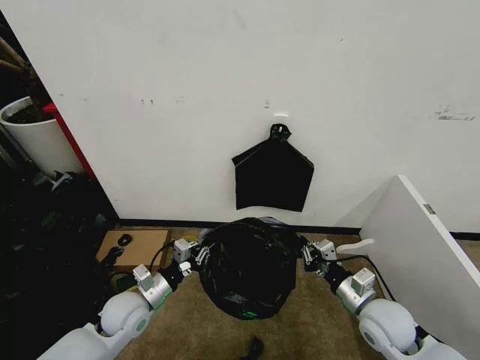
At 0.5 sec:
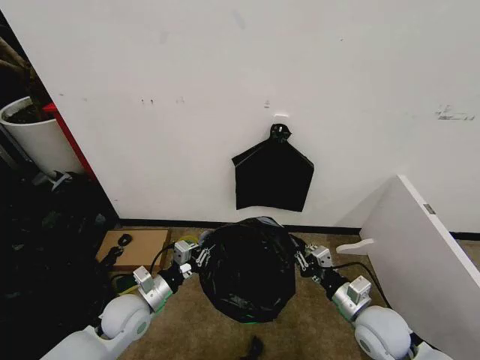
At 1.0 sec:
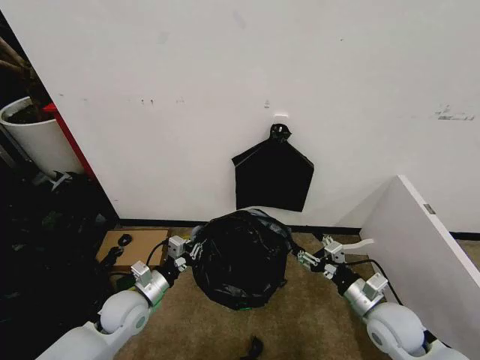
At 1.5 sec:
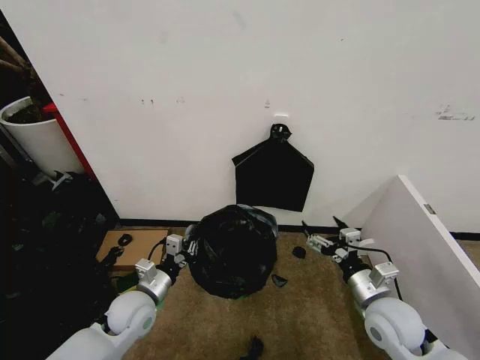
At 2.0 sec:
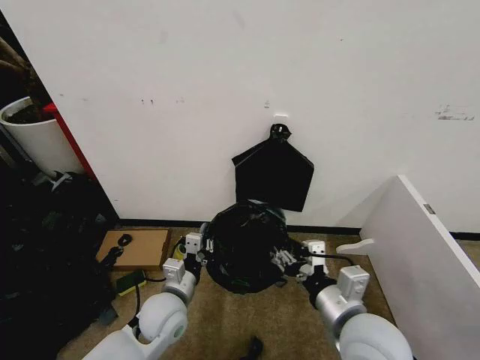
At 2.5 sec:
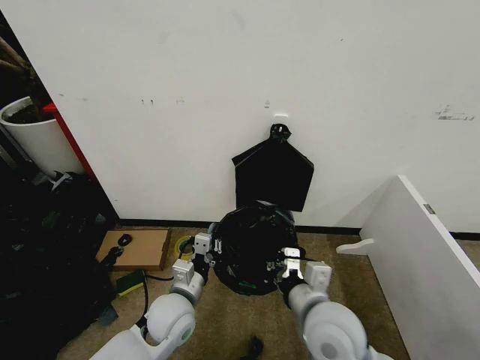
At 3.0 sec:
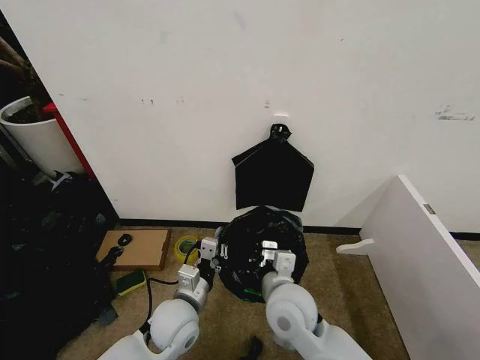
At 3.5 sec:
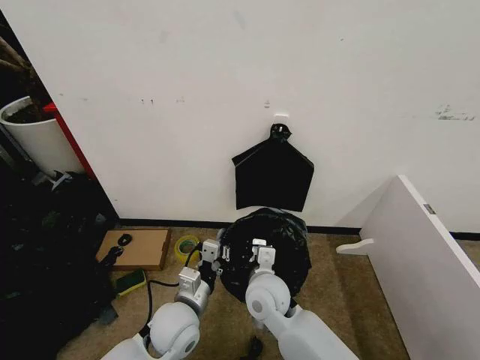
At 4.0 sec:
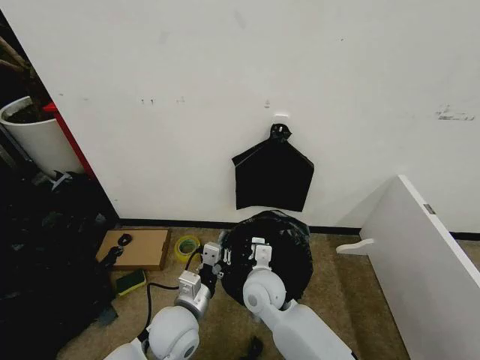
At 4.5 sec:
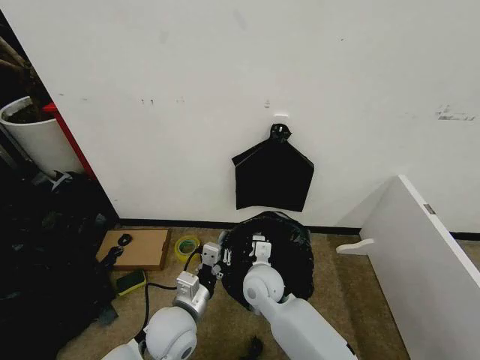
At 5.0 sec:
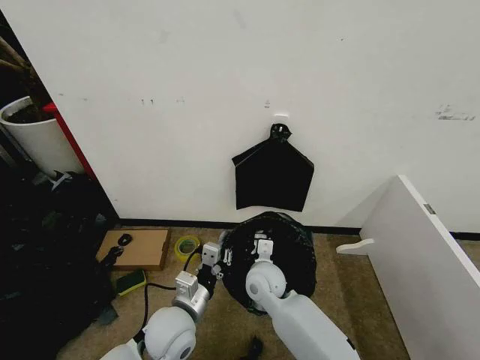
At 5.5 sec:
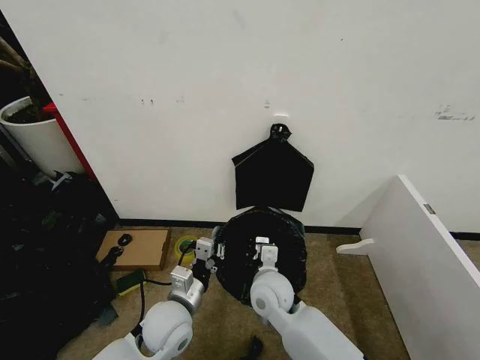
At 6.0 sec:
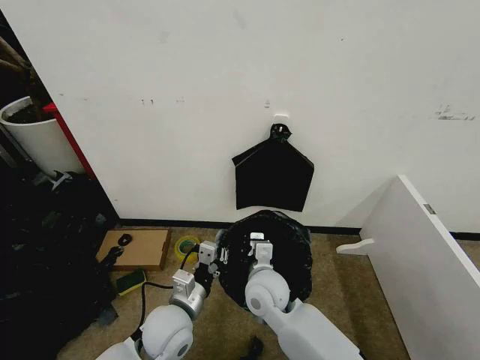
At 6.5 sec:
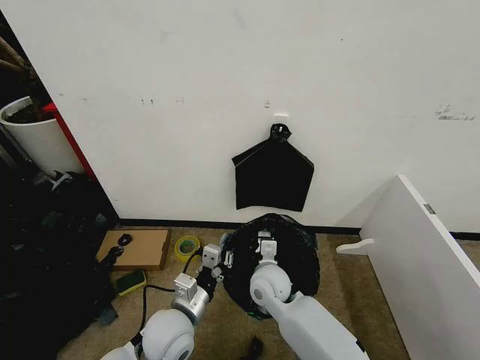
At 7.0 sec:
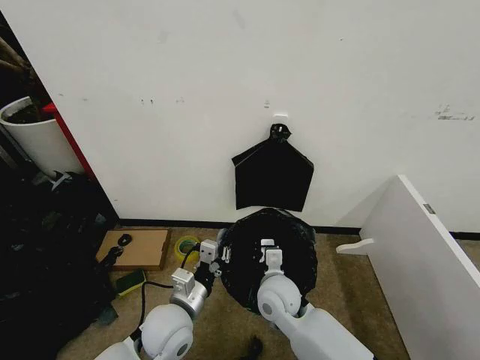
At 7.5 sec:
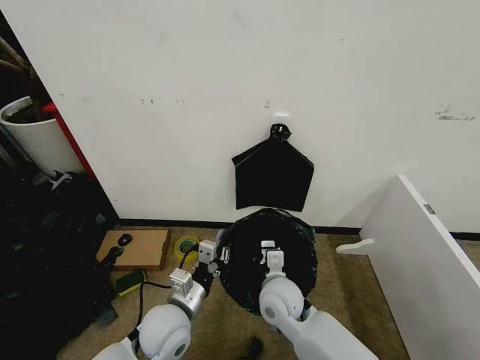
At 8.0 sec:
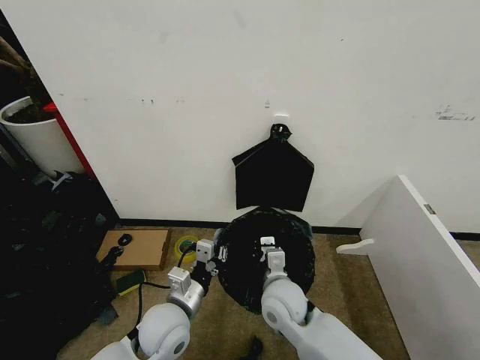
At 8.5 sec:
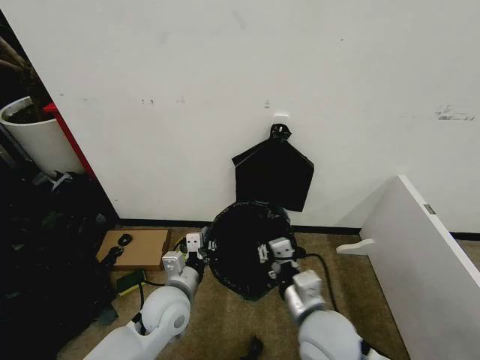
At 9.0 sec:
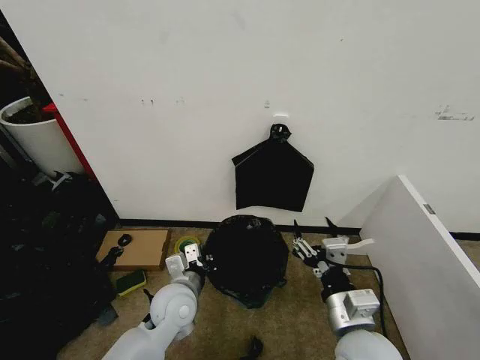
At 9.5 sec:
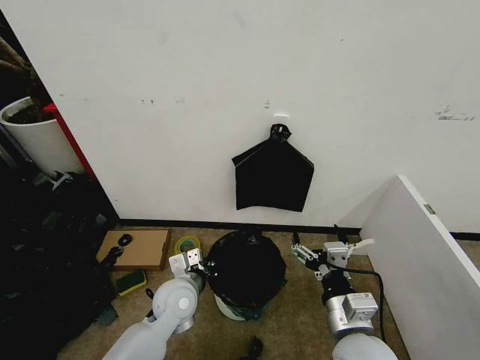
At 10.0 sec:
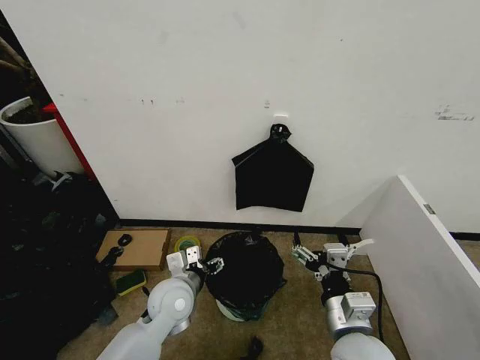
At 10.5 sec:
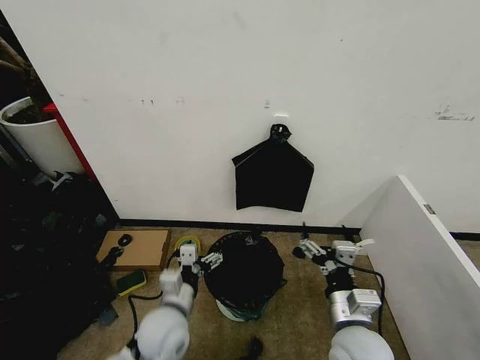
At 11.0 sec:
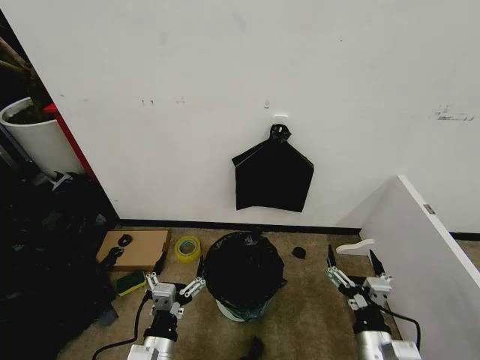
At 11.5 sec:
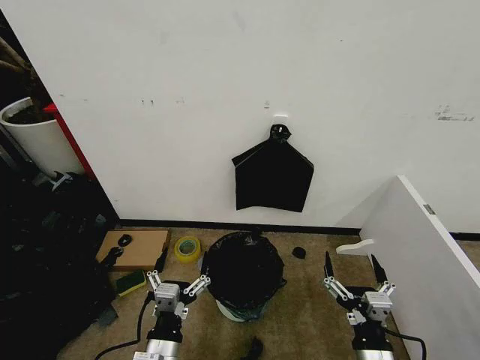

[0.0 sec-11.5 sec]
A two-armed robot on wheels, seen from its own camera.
Task of the whole recording: Place the garbage bag over the trash bin.
0.0 sec to 2.0 sec: The left gripper is displaced to the right by about 10 cm. Meanwhile the right gripper heads upward, to the left and backward, covering roughly 15 cm, and opens.
2.0 sec to 4.0 sec: The right gripper travels to the left, forward and downward by some 25 cm, and closes.
4.0 sec to 7.5 sec: The grippers make only small movements.
7.5 sec to 9.5 sec: The right gripper travels backward, to the right and upward by some 20 cm, and opens up. Meanwhile the left gripper travels forward by approximately 5 cm.
9.5 sec to 11.5 sec: The right gripper is displaced downward and backward by approximately 10 cm; the left gripper heads backward, covering some 20 cm, and opens up.

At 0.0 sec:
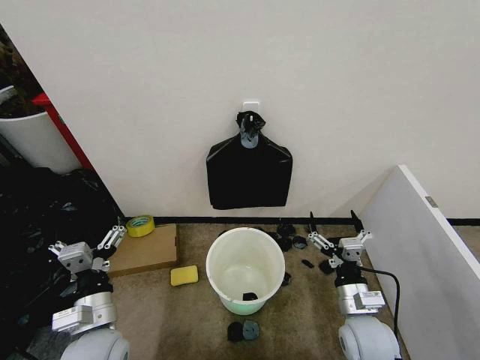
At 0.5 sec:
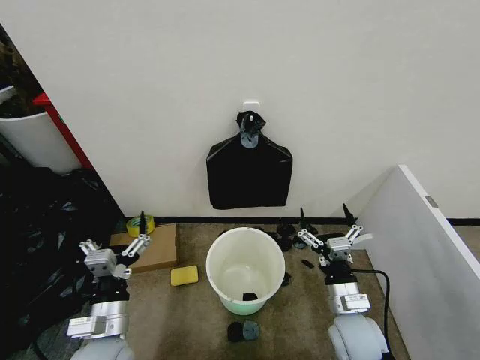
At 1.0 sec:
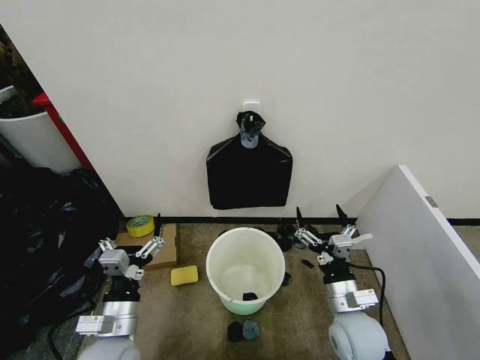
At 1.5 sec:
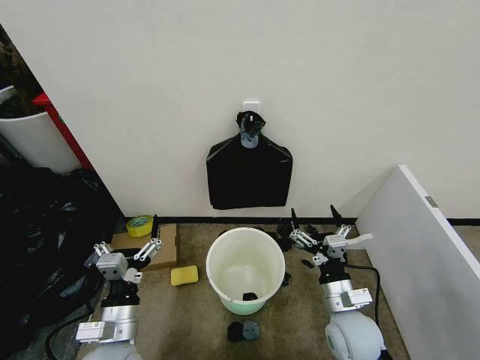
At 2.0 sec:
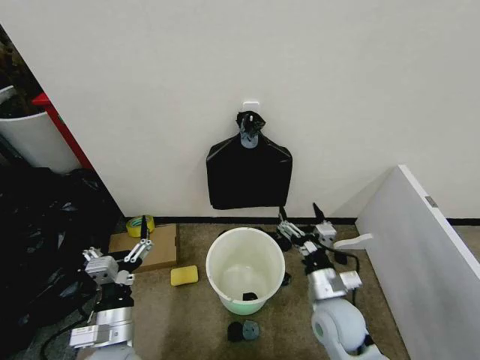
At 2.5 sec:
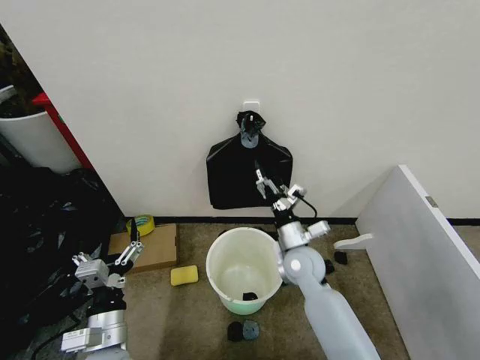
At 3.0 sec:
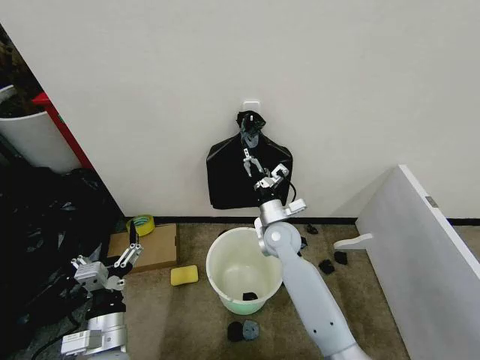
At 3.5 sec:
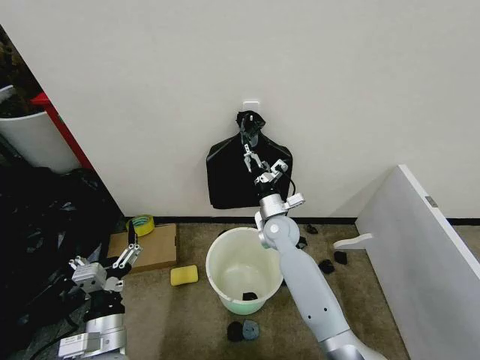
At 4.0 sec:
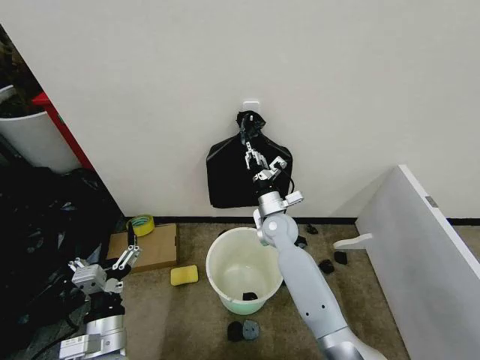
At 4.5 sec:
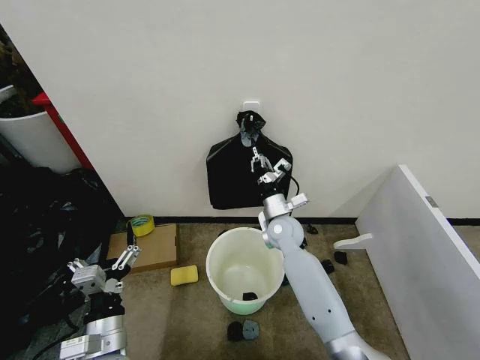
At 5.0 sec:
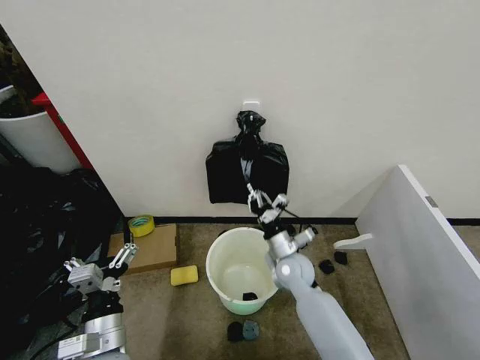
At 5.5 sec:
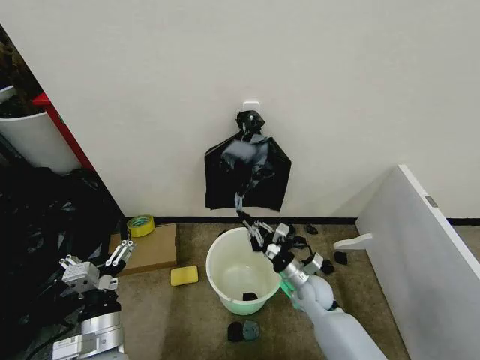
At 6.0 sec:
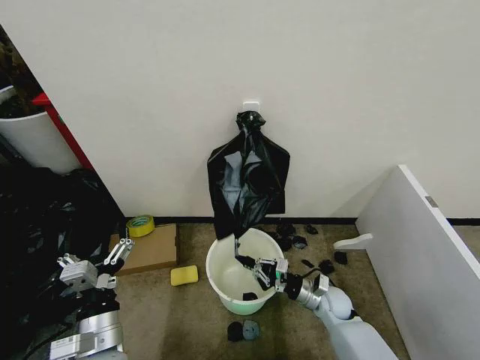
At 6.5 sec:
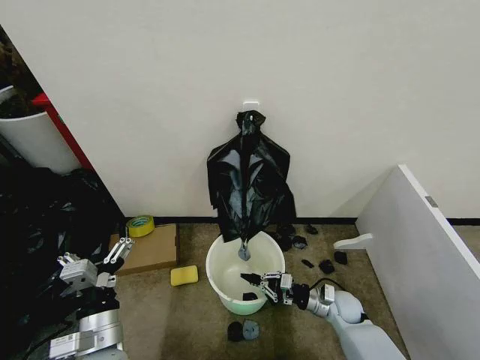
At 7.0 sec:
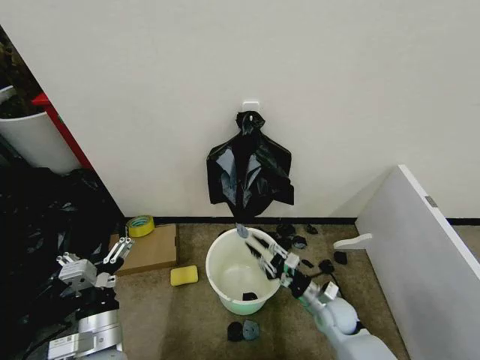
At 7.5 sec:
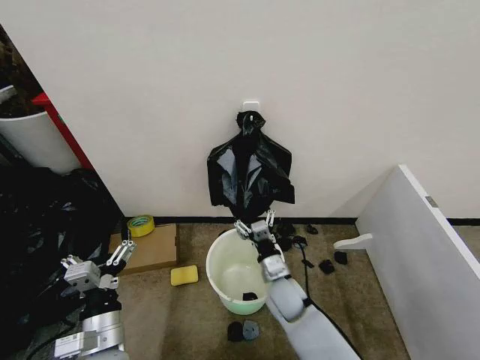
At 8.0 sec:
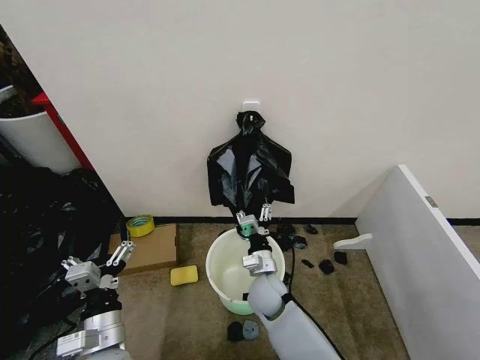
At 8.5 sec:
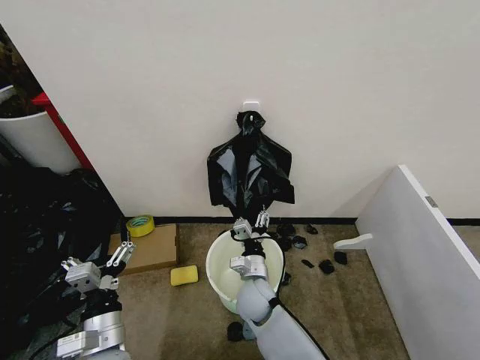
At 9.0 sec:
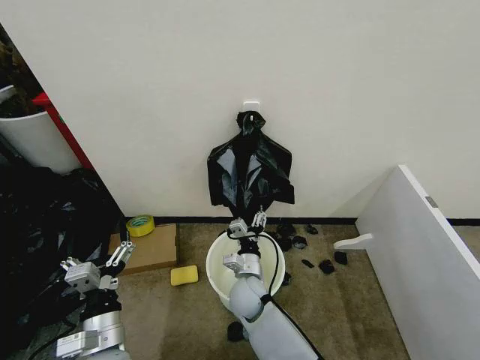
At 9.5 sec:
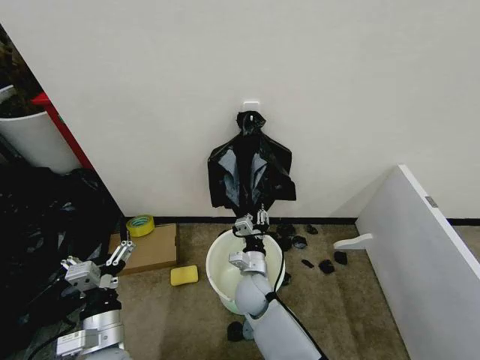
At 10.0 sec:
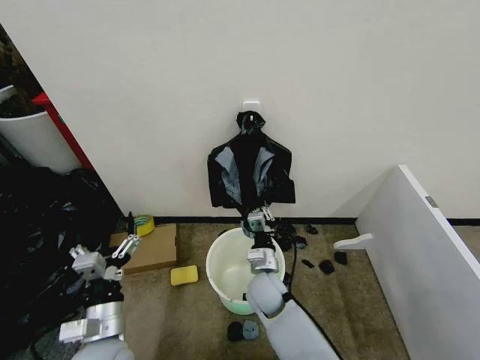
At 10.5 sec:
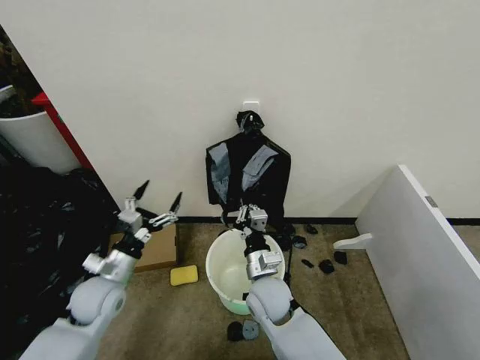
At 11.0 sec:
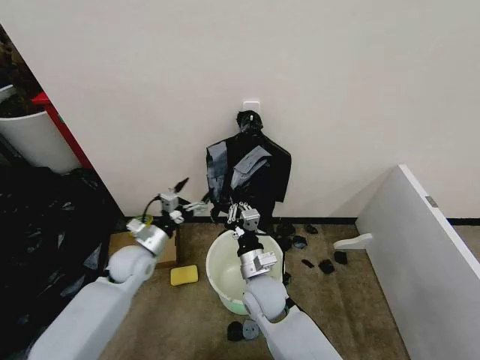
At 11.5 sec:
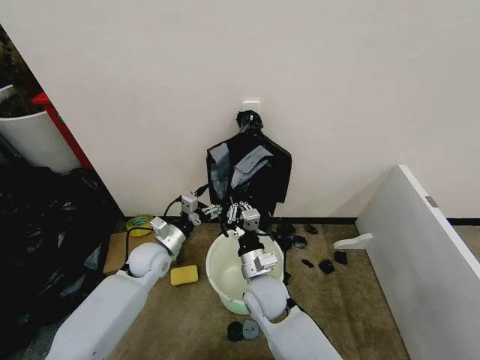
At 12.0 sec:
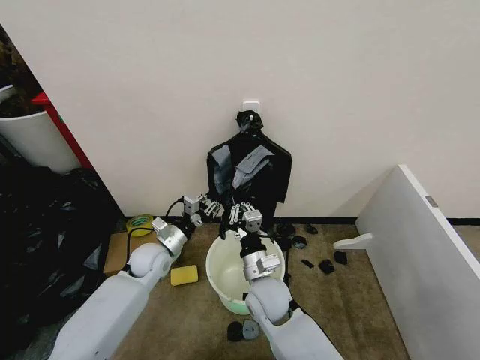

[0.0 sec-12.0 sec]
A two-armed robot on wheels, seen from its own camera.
Task of the whole recording: Place the garbage bag over the trash bin.
2.0 sec to 4.0 sec: The right gripper travels forward and to the left by roughly 25 cm, and closes up.
4.0 sec to 6.0 sec: The right gripper travels downward, to the right and backward by roughly 25 cm.
6.0 sec to 8.0 sec: The right gripper moves to the left and upward, approximately 20 cm, and opens its fingers.
8.0 sec to 10.0 sec: The right gripper closes up.
10.0 sec to 12.0 sec: The left gripper travels forward by some 20 cm, and closes.

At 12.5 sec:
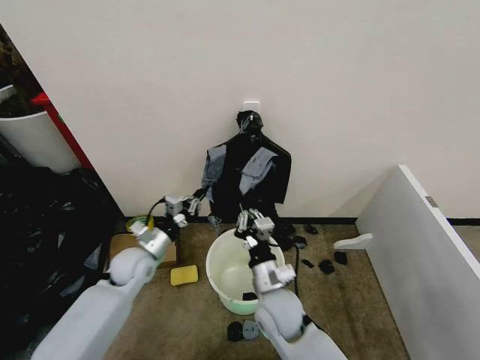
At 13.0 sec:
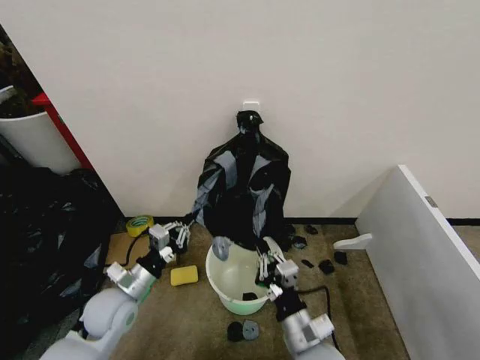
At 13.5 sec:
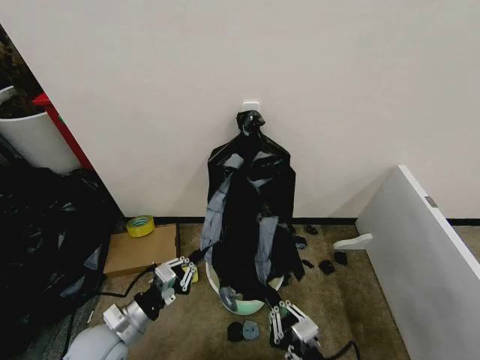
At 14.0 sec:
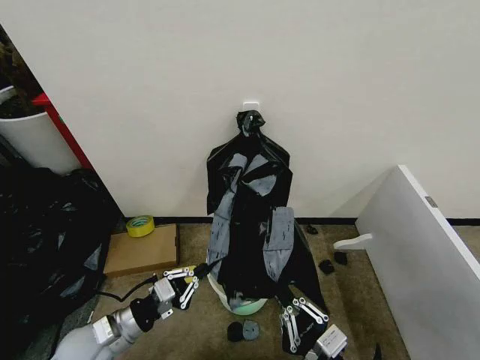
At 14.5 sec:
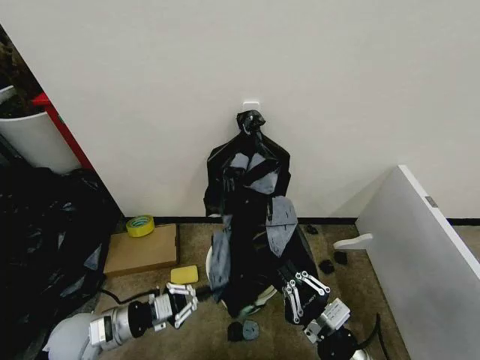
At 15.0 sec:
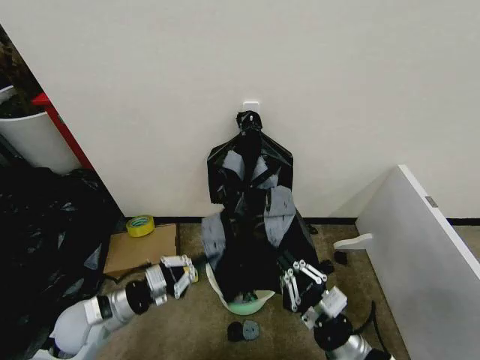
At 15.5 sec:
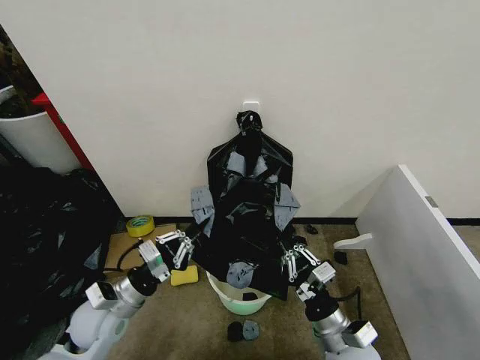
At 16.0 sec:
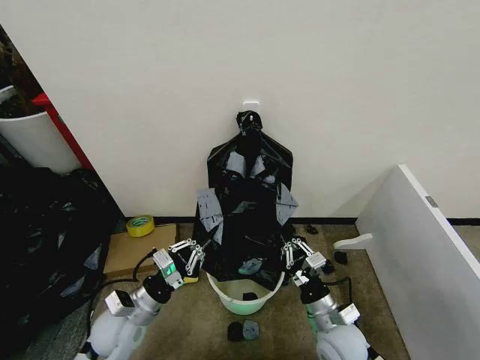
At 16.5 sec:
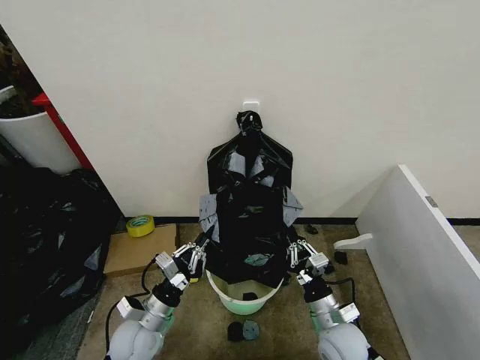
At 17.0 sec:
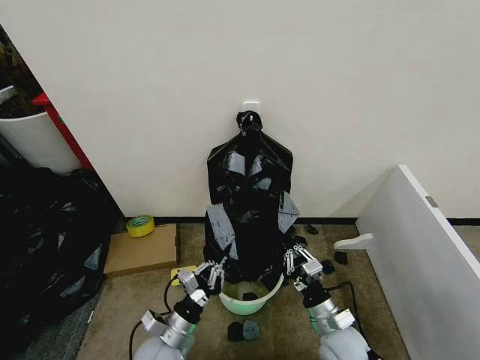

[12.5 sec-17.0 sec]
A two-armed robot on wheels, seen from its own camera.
Task of the whole recording: Place the garbage bag over the trash bin.
12.5 sec to 14.5 sec: The right gripper heads backward and to the right, covering roughly 20 cm. The left gripper moves backward, roughly 15 cm.
14.5 sec to 17.0 sec: The right gripper travels downward and forward by about 15 cm. Meanwhile the left gripper shifts roughly 15 cm to the right and downward.
